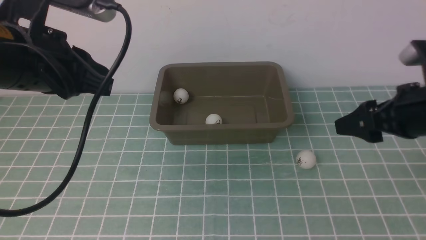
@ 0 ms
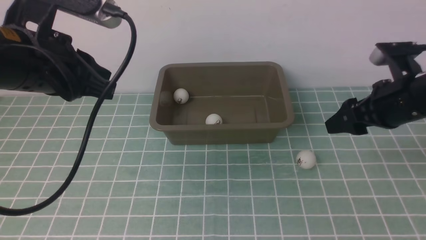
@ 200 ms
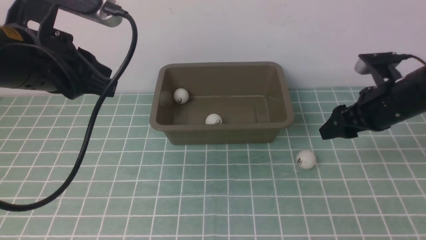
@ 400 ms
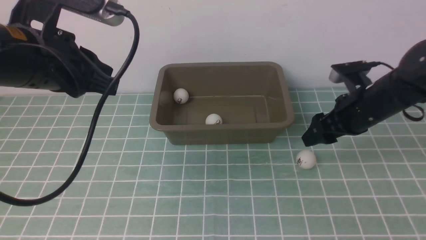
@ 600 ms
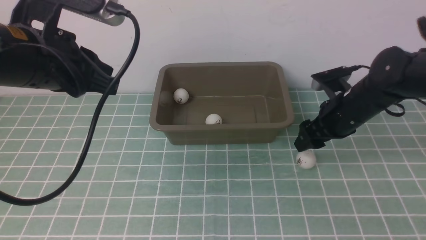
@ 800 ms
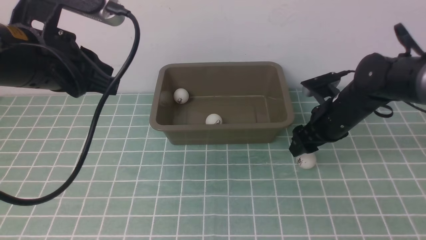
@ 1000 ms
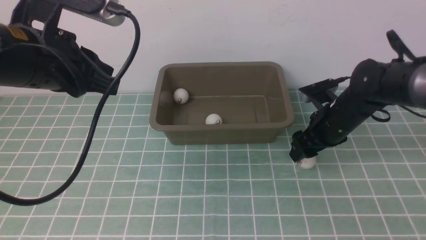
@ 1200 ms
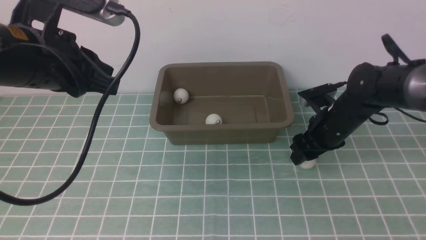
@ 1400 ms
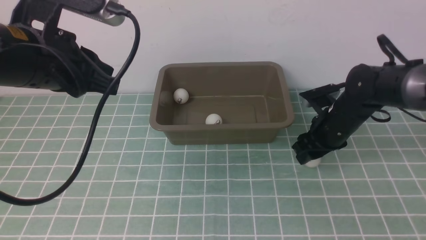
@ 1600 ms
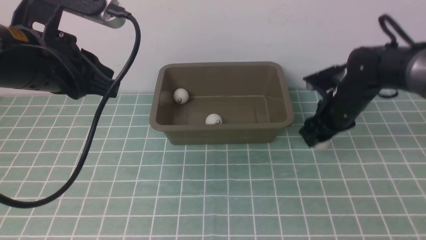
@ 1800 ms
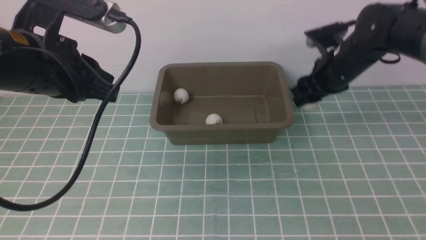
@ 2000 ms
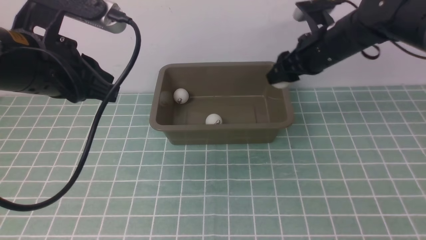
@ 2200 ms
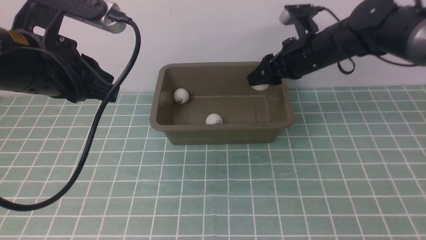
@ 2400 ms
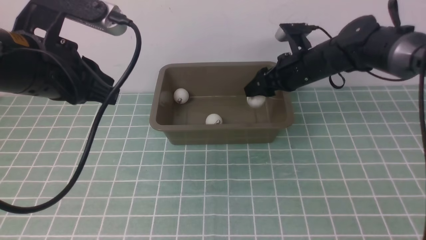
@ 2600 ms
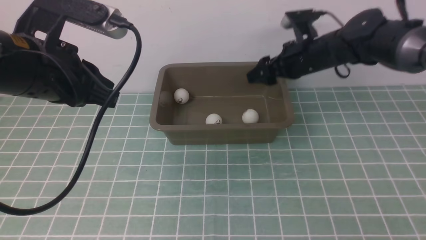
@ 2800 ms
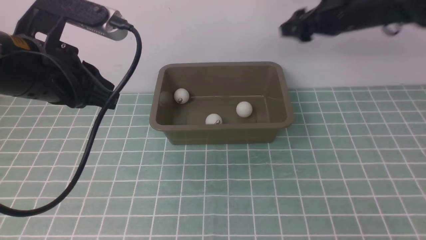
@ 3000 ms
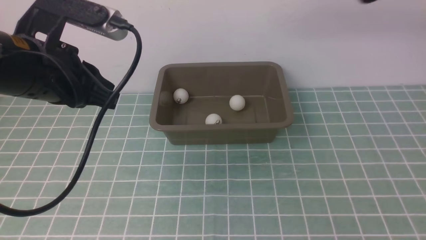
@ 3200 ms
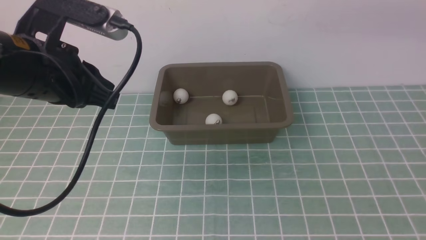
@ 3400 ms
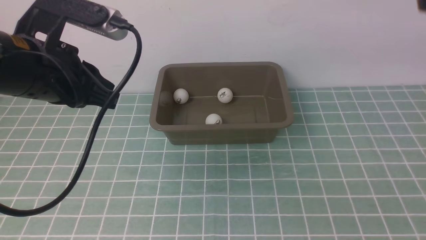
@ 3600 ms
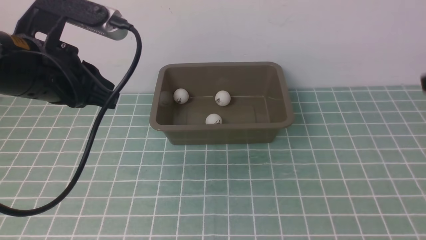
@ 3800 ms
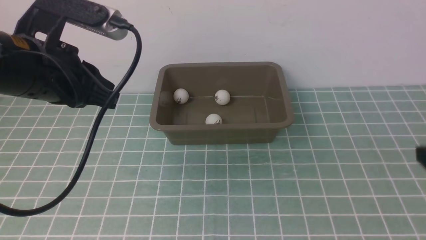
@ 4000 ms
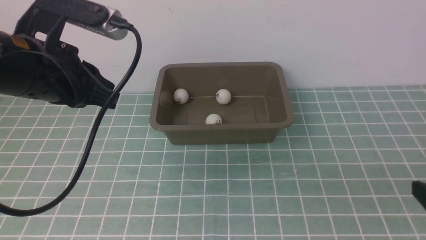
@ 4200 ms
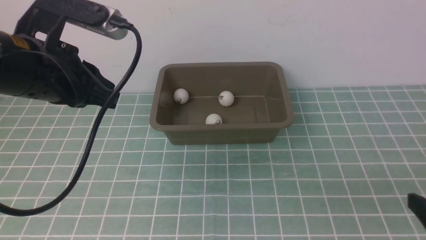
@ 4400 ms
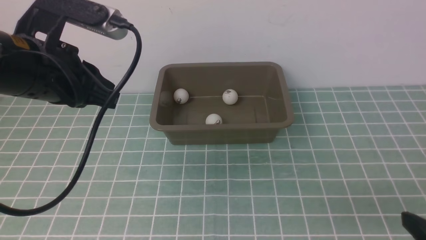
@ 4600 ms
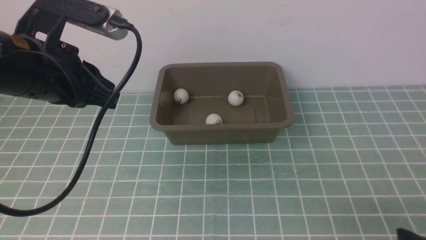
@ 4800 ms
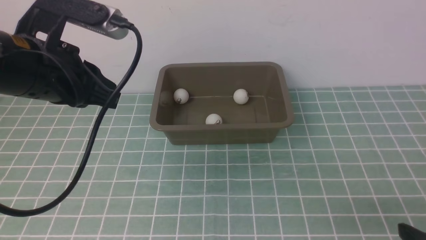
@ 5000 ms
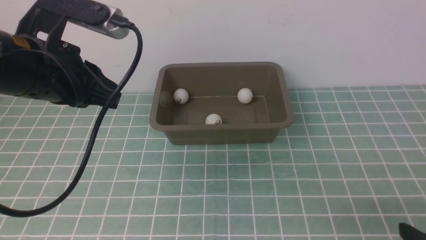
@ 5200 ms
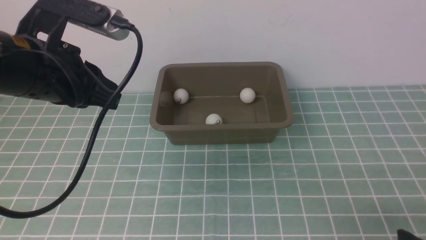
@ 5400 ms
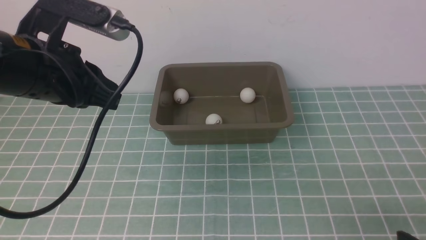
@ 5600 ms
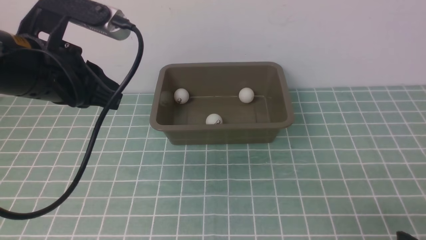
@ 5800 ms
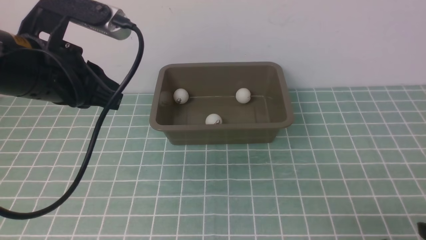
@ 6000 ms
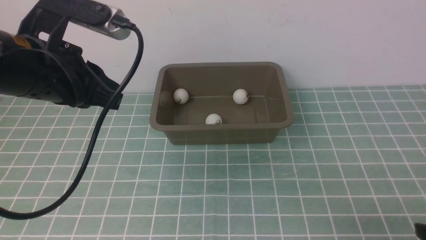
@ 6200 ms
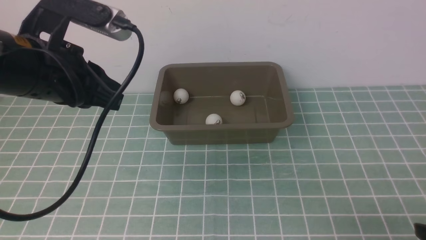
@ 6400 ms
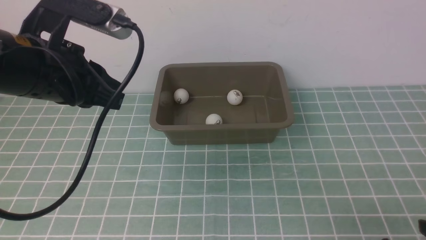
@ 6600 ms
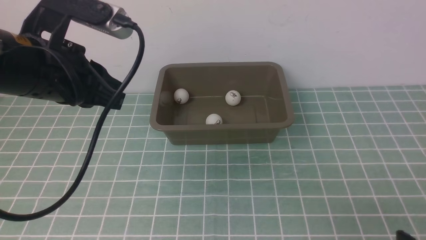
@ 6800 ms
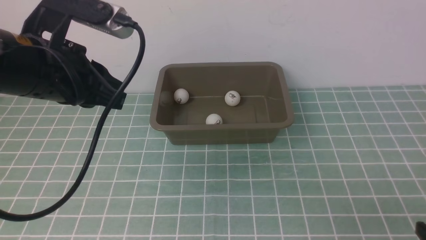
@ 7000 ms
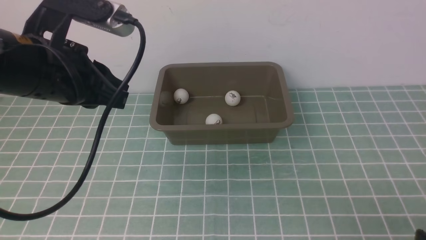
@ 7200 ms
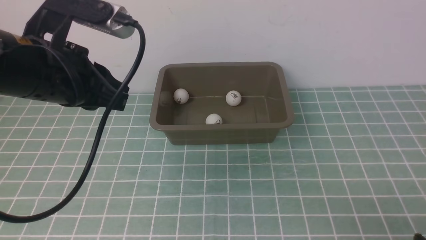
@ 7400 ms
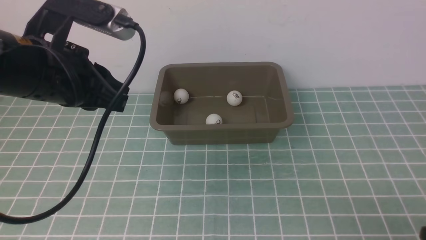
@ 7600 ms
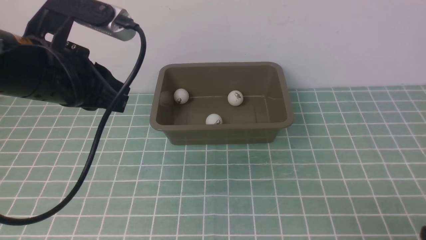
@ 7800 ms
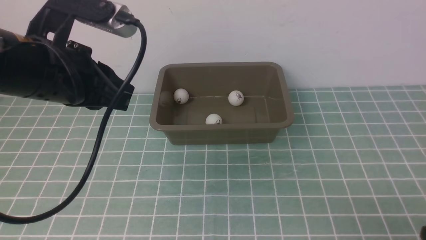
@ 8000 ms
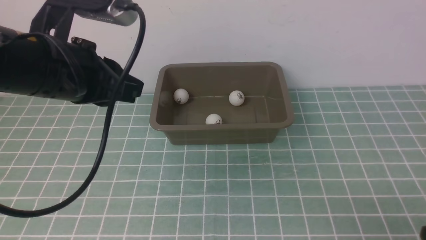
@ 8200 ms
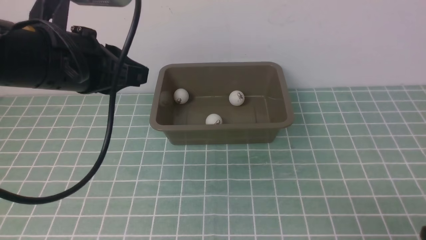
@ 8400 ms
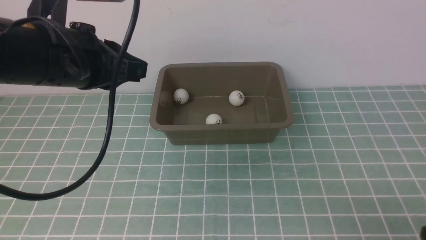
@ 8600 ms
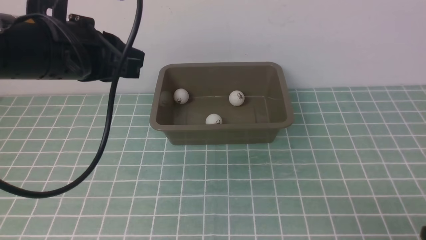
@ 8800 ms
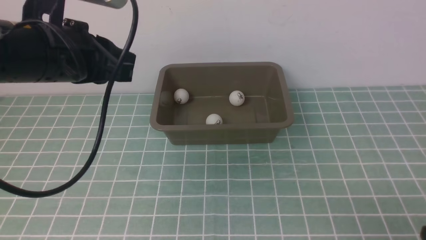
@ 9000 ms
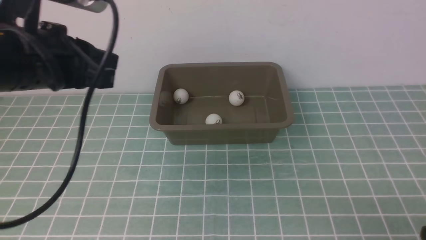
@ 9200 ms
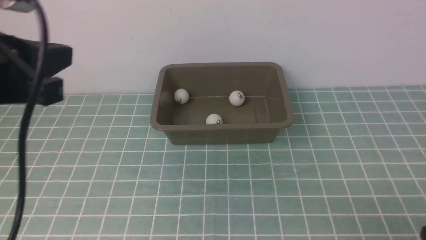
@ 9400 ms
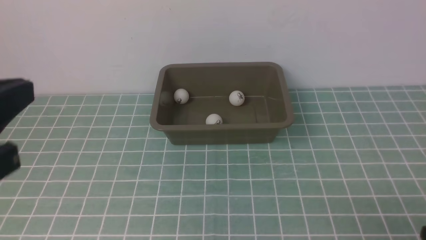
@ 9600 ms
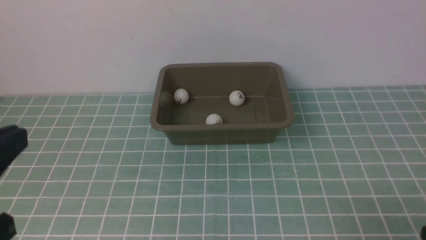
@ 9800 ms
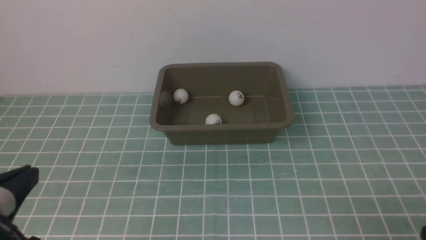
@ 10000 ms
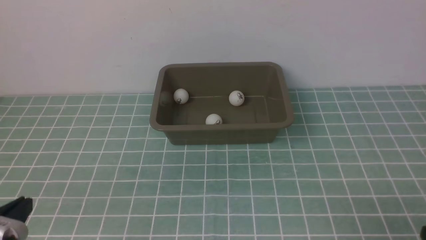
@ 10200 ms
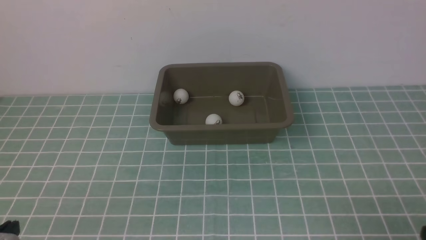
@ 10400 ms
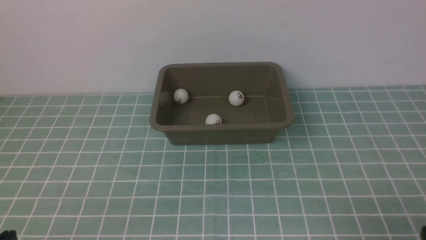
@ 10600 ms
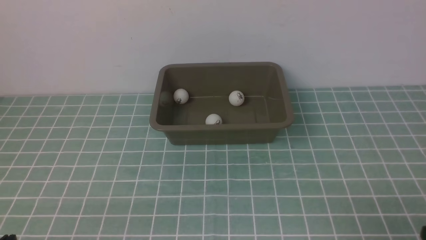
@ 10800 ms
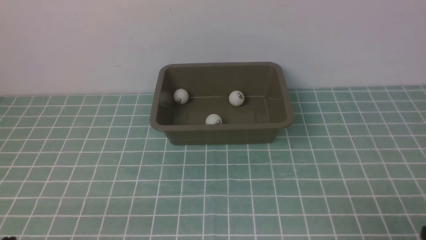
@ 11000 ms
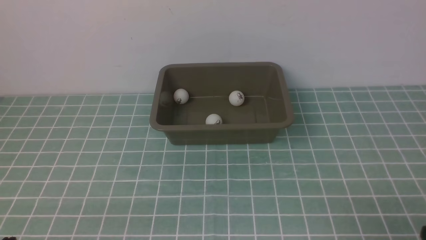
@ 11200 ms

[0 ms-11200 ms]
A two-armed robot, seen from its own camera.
Step, 2200 ms to 3000 ms: use the right arm to put the table tennis ball into the box.
0 ms to 1600 ms: The right gripper travels downward and forward by about 15 cm, and closes up.
1600 ms to 3200 ms: The right gripper shifts about 25 cm upward, and opens.
3200 ms to 4800 ms: The right gripper shifts approximately 35 cm backward and downward.
4800 ms to 6400 ms: There are only small adjustments of the grippers.
8000 ms to 9600 ms: The left gripper heads backward, covering approximately 15 cm.
9600 ms to 11200 ms: The left gripper heads downward, covering approximately 20 cm.

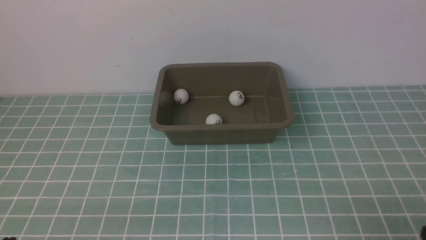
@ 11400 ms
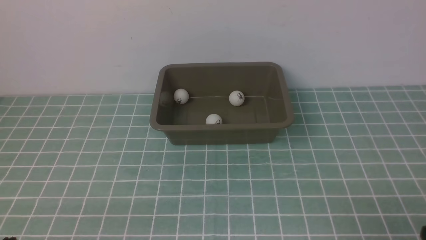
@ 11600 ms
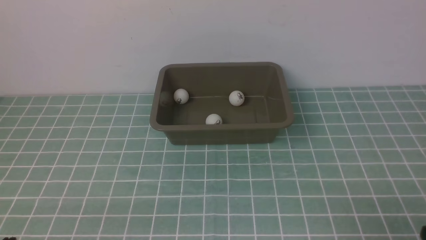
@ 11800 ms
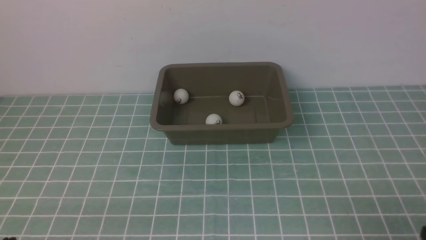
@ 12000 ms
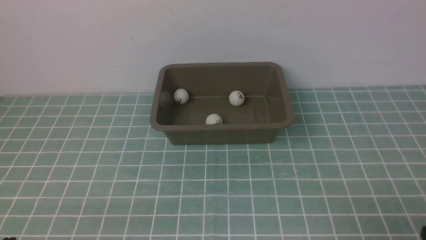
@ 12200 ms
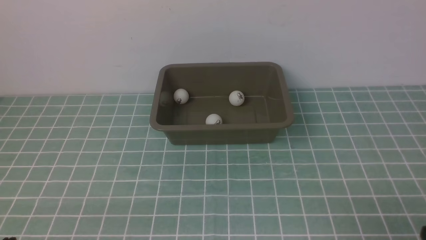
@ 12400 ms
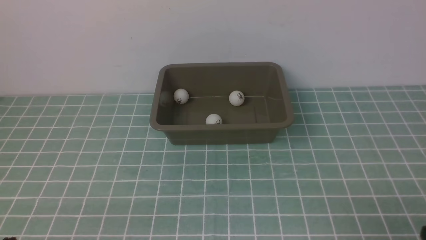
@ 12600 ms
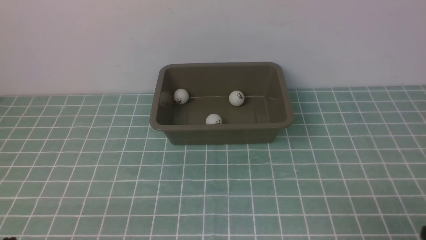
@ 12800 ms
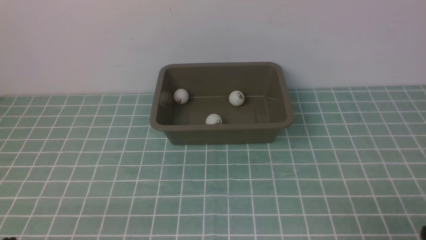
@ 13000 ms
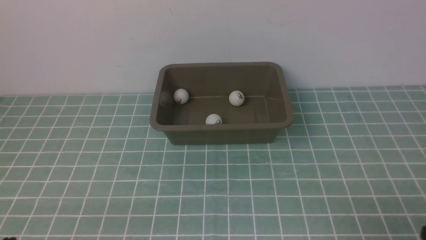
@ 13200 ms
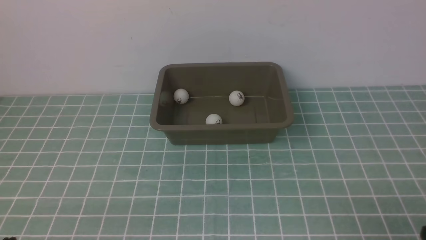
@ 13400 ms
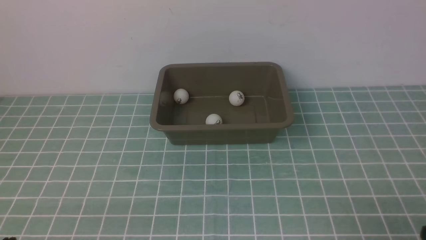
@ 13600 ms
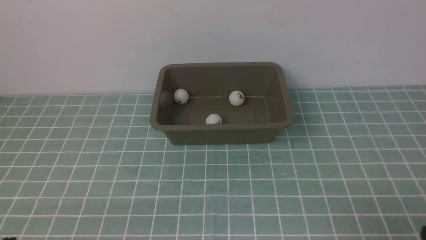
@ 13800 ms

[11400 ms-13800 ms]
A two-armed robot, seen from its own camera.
11400 ms to 13800 ms: Both grippers stay put.
